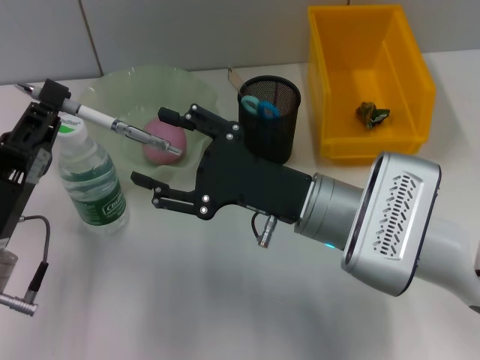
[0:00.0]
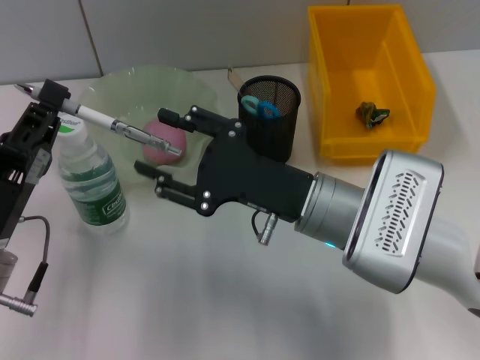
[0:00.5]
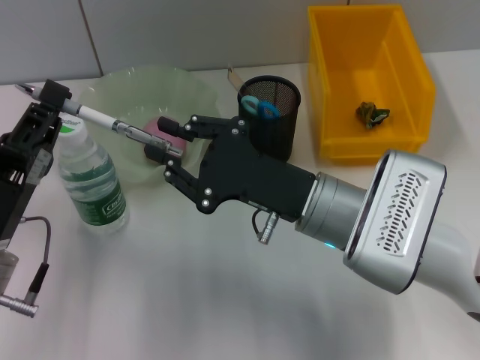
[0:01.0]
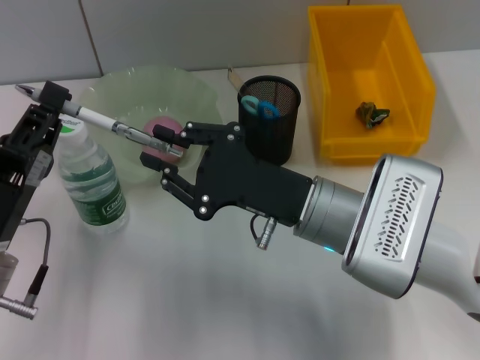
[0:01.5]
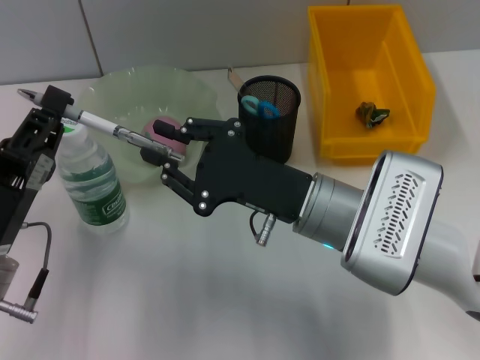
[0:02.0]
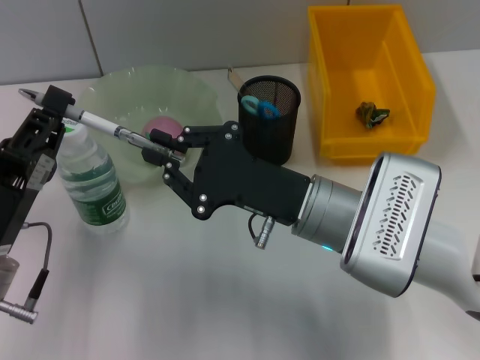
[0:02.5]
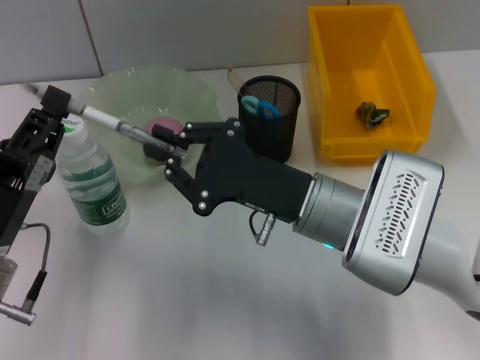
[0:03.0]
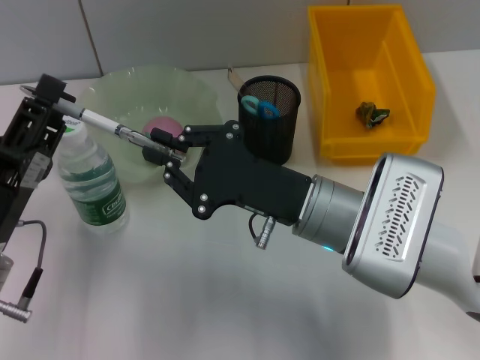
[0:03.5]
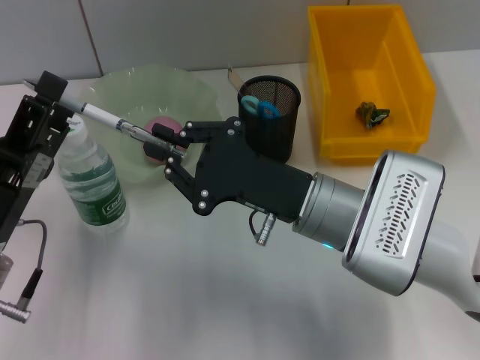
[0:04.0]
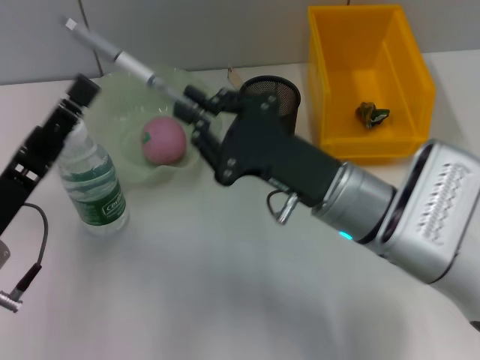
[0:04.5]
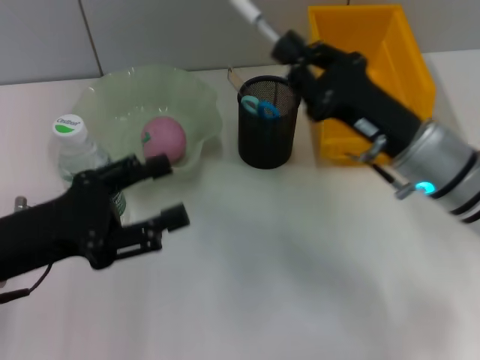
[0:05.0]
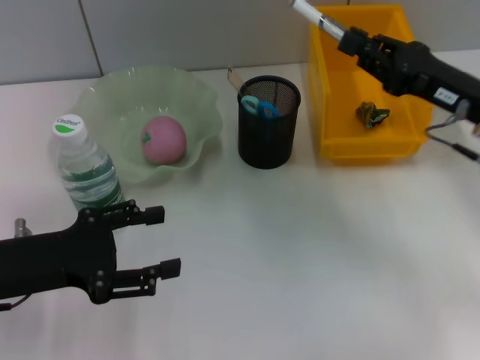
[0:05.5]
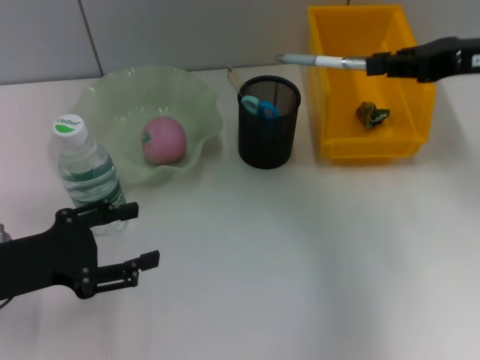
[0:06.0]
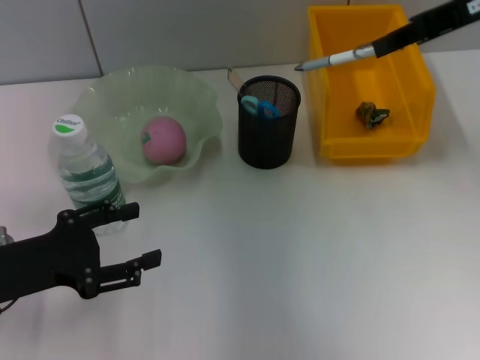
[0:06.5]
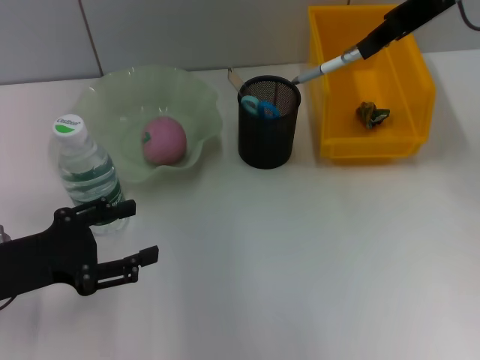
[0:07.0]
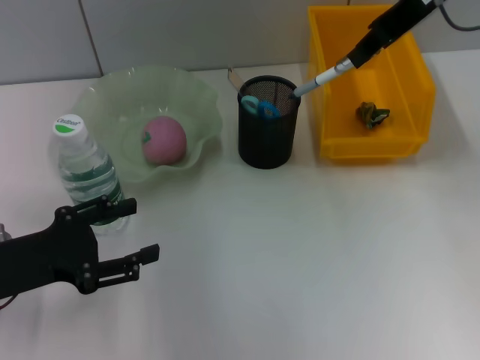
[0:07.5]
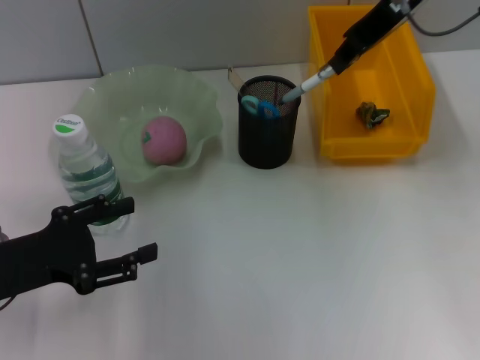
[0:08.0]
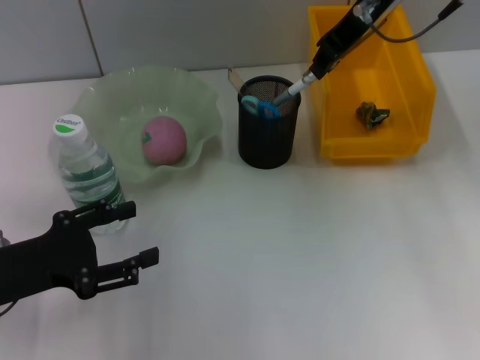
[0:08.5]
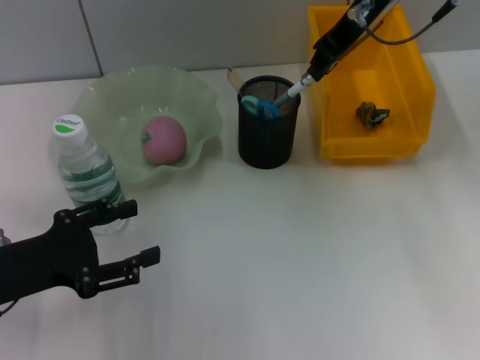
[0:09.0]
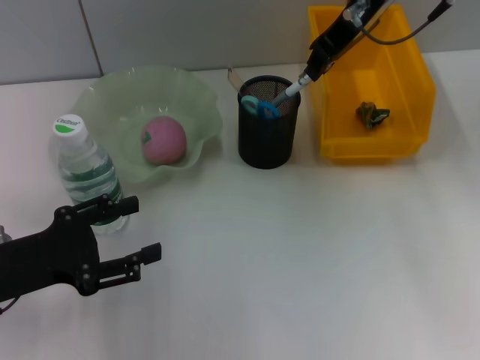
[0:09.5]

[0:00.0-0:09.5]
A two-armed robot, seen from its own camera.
Step, 0:00.0 to 0:03.0: Pass the gray spring-action pen from the left hand to the right hand.
0:00.0 to 0:02.0: The right gripper closes up.
0:02.0 to 0:04.0: The left gripper opens.
0:04.0 to 0:05.5: The right gripper moves to the right, roughly 15 cm.
0:05.5 to 0:07.5: The right gripper goes some 20 cm upward and forward.
0:07.5 to 0:09.5: The right gripper goes about 5 cm to the left.

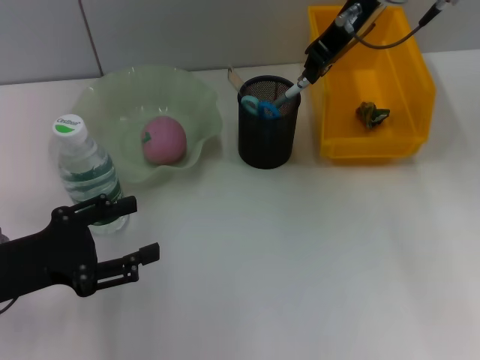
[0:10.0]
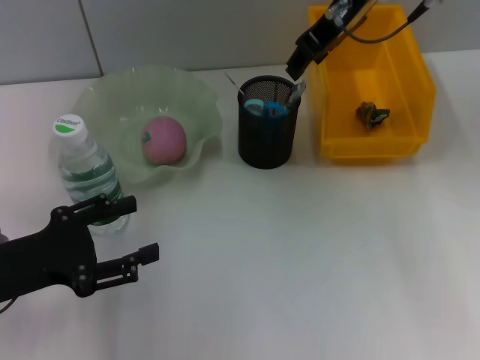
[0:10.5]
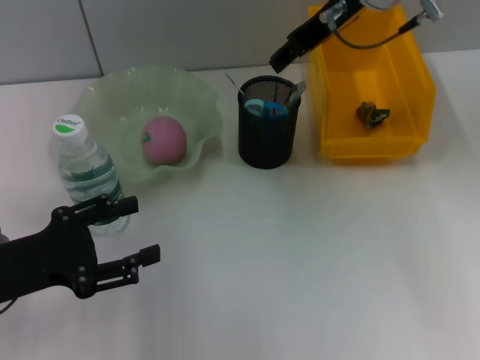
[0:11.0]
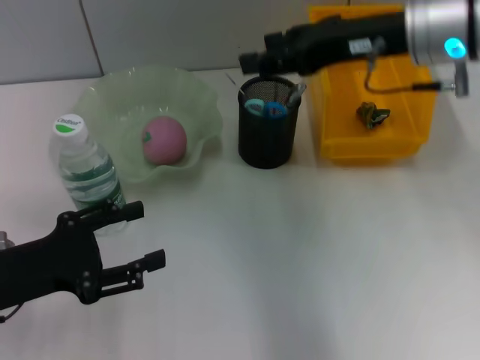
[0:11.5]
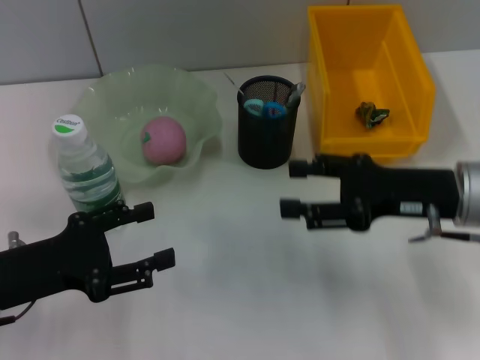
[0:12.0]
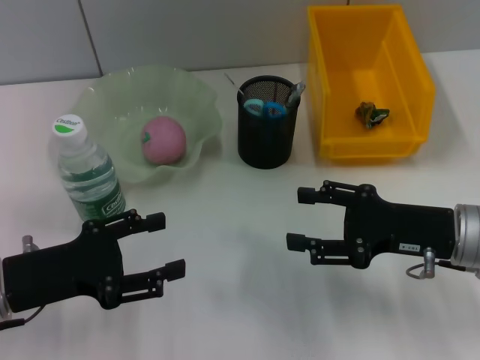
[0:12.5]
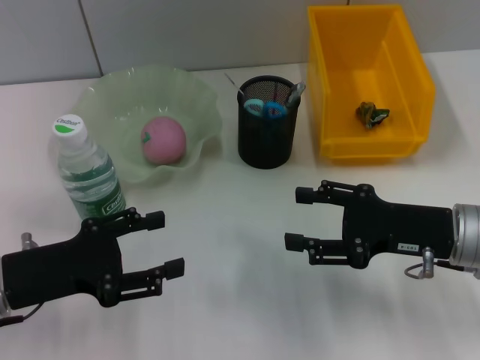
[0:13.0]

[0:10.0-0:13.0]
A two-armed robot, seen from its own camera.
0:10.0 to 0:11.5: The right gripper moves backward, to the right and downward, some 10 cm, and opens its fingers.
0:11.5 to 0:13.0: The right gripper moves downward and backward, approximately 20 cm.
